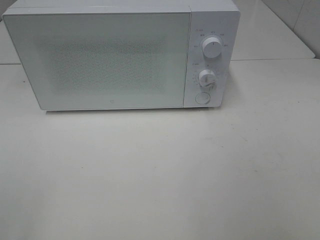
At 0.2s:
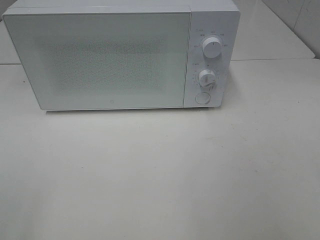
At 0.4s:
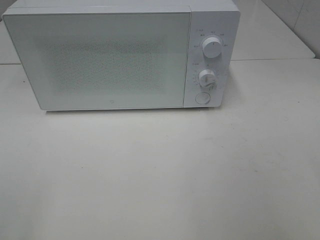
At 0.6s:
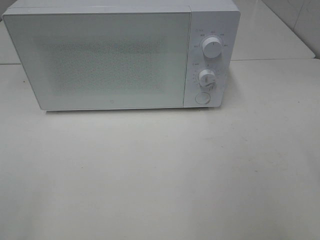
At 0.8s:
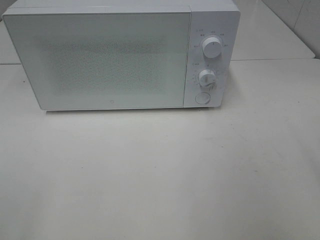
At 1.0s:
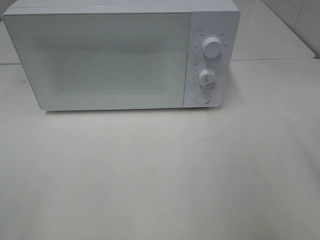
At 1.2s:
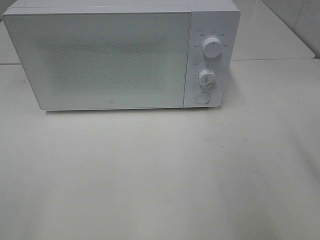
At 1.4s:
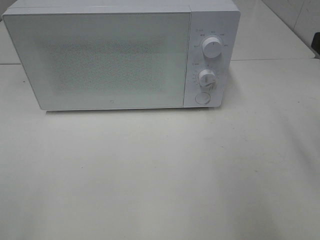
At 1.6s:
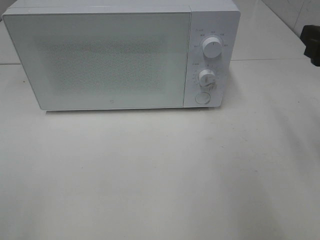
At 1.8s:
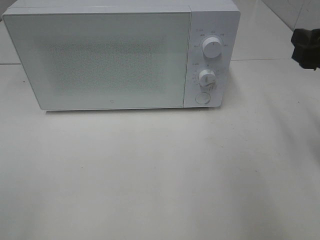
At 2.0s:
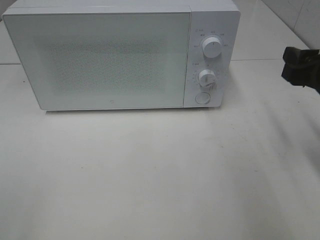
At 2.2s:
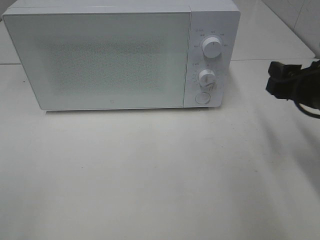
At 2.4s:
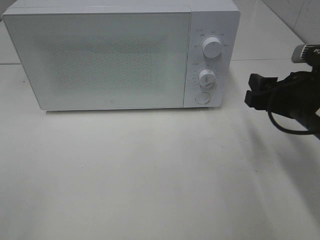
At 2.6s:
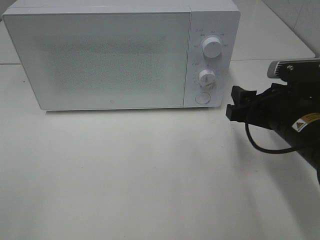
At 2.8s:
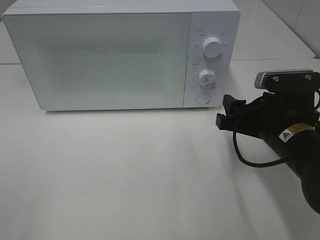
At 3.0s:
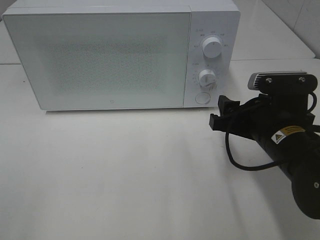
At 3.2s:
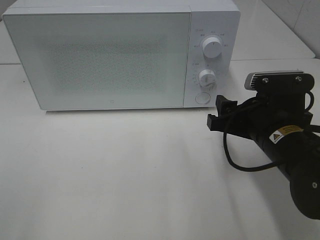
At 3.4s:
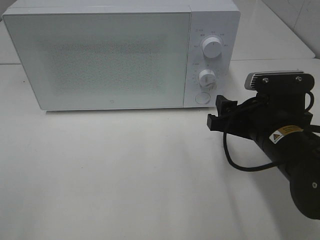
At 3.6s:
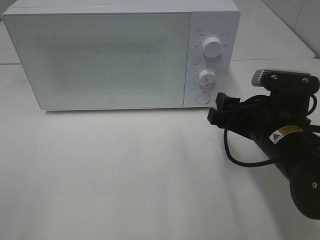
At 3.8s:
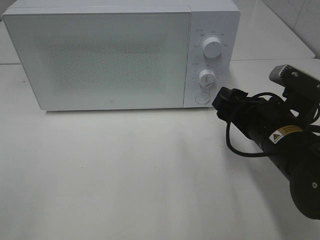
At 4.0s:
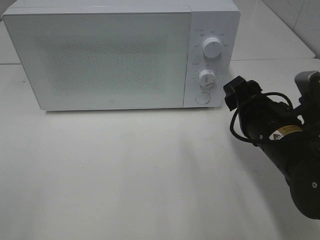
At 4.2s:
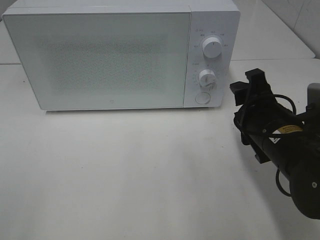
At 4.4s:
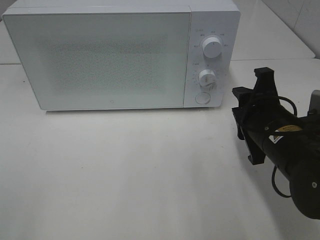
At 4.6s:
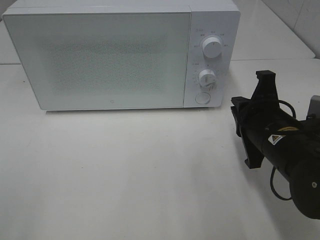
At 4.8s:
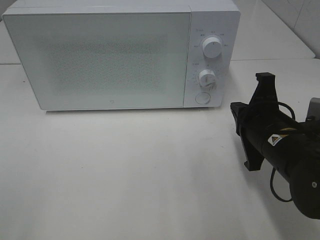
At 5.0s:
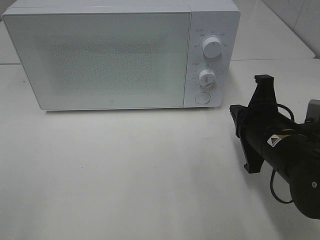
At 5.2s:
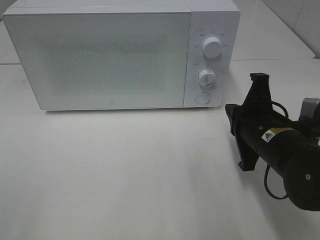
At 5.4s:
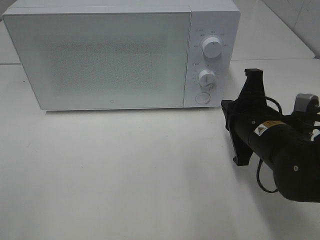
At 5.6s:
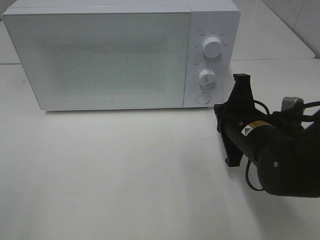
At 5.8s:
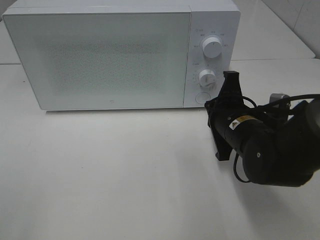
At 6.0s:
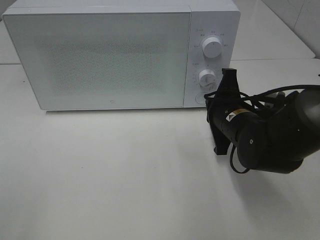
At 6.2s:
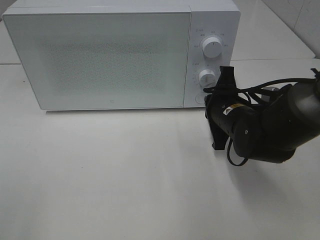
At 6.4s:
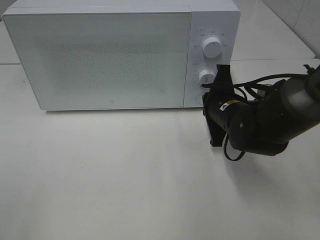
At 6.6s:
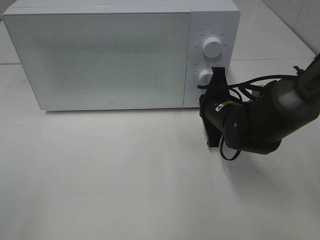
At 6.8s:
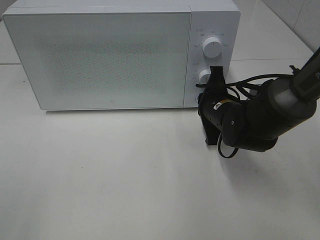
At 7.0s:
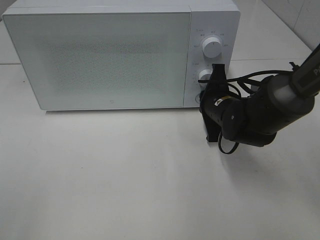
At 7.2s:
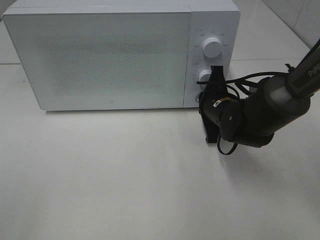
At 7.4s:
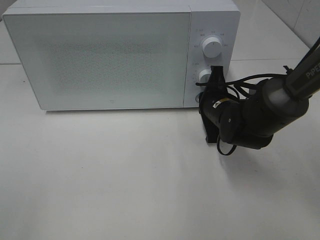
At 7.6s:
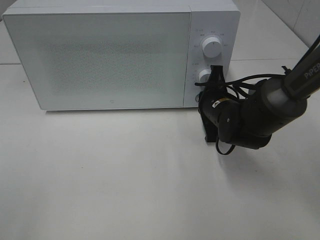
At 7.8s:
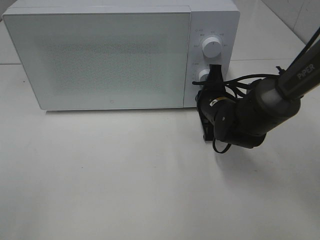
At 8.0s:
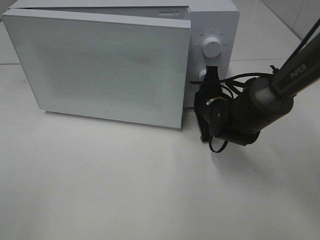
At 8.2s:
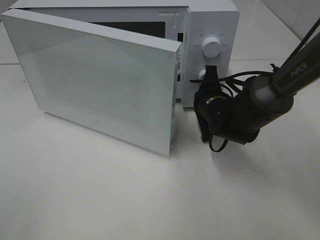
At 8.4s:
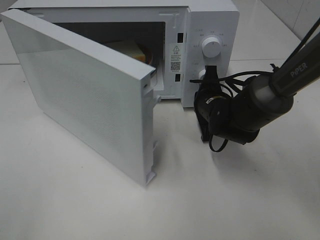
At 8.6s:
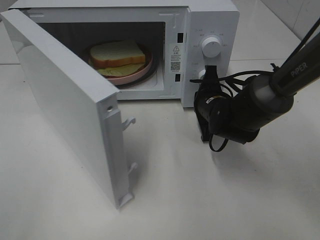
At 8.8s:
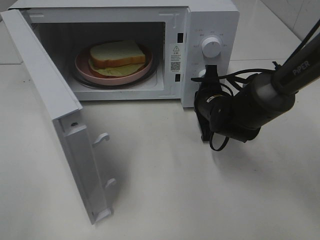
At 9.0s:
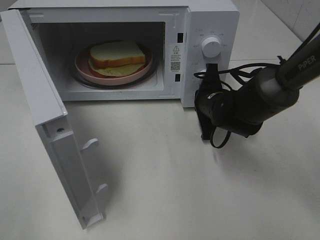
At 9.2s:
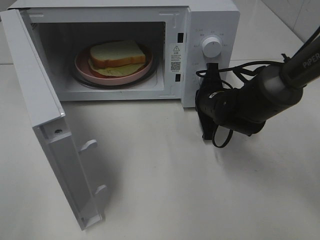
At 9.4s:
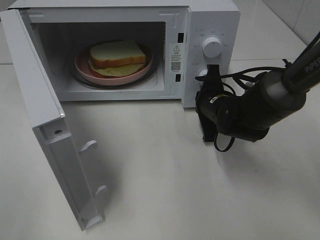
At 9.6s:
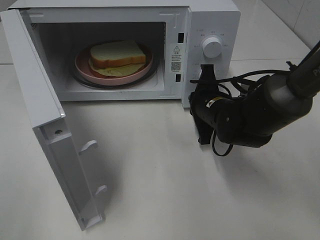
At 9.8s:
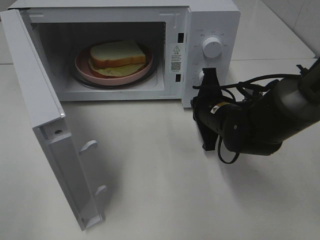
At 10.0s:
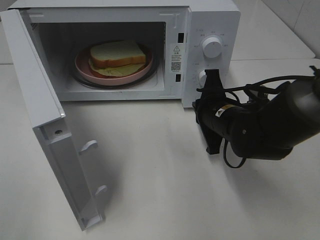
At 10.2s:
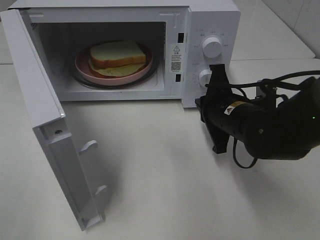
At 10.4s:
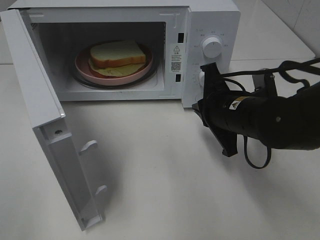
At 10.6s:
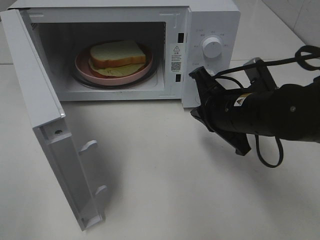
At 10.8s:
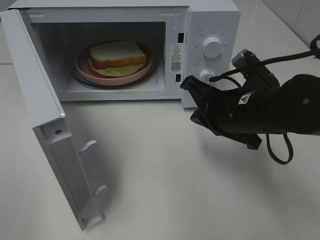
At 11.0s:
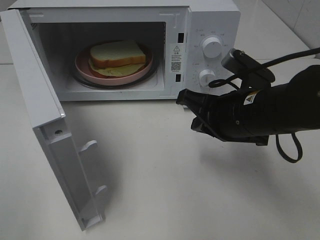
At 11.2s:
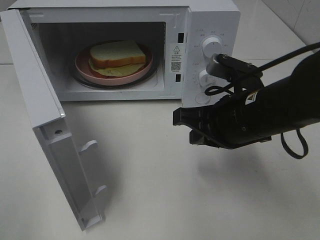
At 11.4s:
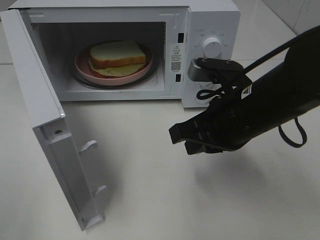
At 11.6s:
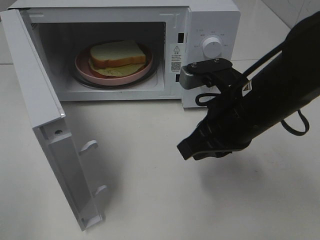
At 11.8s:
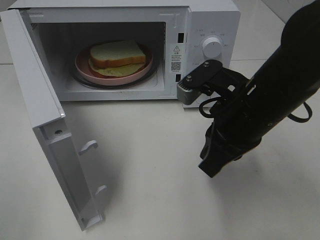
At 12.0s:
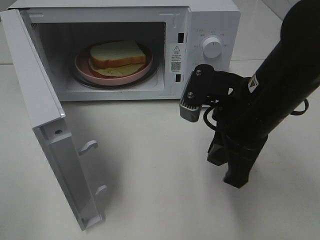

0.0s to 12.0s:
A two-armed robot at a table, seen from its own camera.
Task of the whole recording: Heat Sandwich.
Step, 0.0s to 9.8s: Right hand: press the switch.
0.0s to 1.6s: The right gripper shifts some 20 cm forward.
1.6s to 3.0s: The right gripper moves downward and to the left, some 15 cm.
3.0s to 4.4s: The right gripper closes up.
4.4s to 6.0s: The right gripper travels forward by some 5 cm, and closes.
6.0s to 7.6s: The right gripper shifts approximately 5 cm forward.
9.0s to 10.4s: The right gripper shifts some 10 cm backward and upward.
10.4s to 12.0s: The right gripper shifts some 5 cm upward.

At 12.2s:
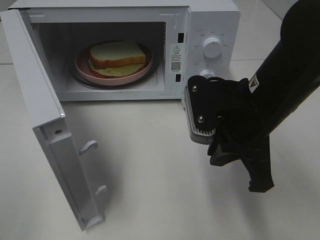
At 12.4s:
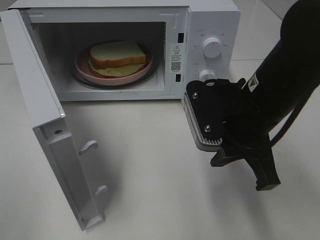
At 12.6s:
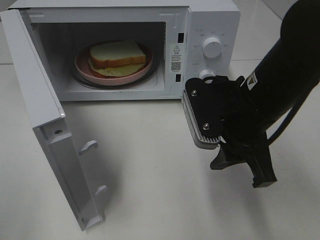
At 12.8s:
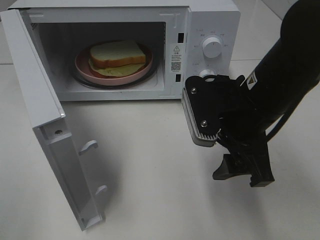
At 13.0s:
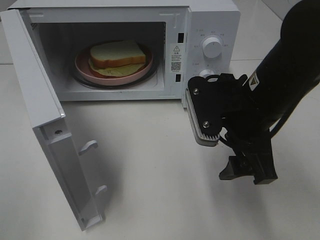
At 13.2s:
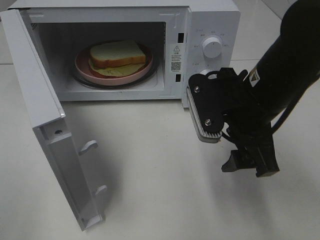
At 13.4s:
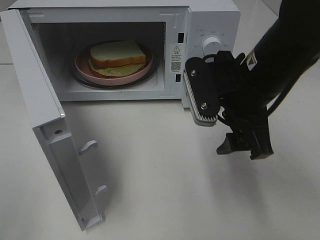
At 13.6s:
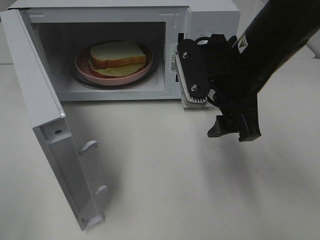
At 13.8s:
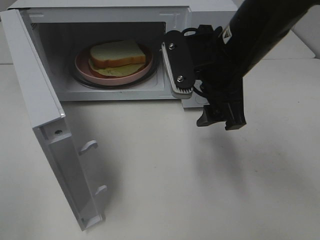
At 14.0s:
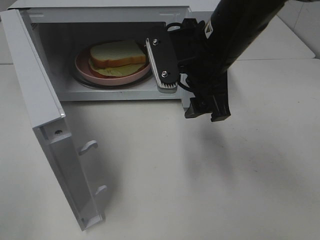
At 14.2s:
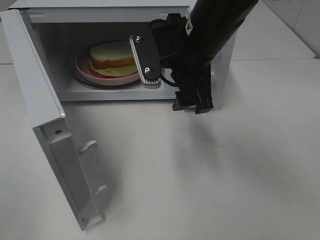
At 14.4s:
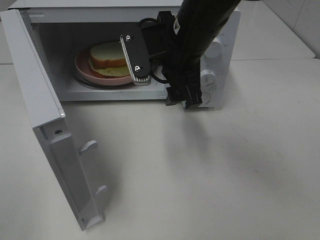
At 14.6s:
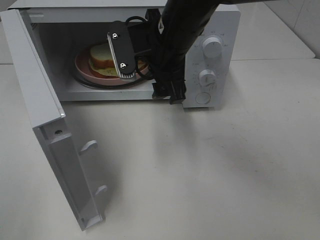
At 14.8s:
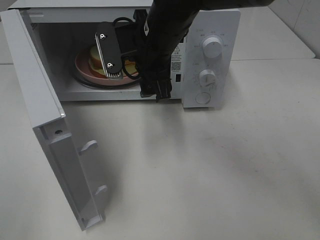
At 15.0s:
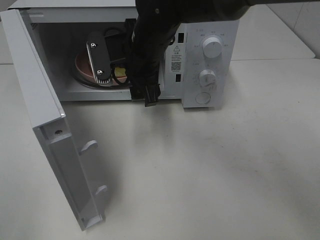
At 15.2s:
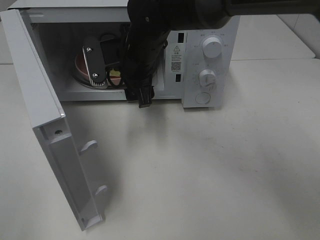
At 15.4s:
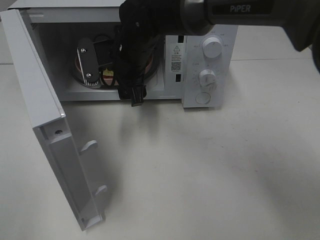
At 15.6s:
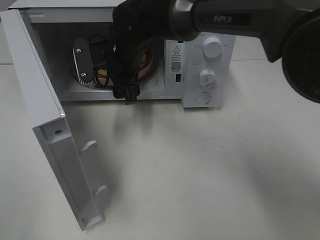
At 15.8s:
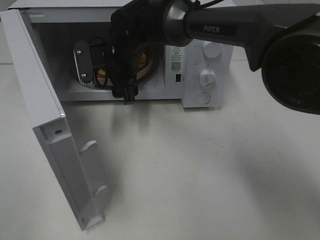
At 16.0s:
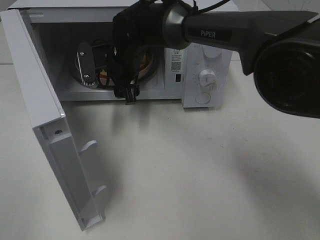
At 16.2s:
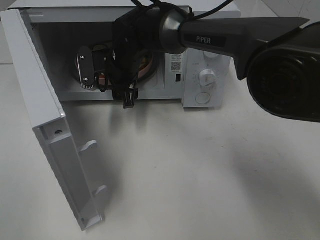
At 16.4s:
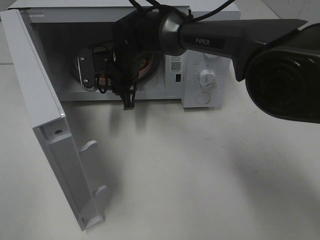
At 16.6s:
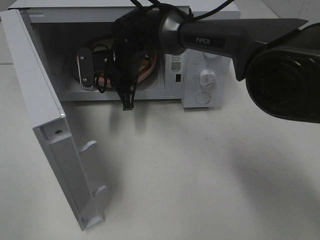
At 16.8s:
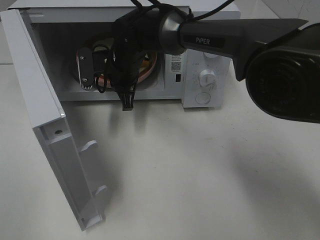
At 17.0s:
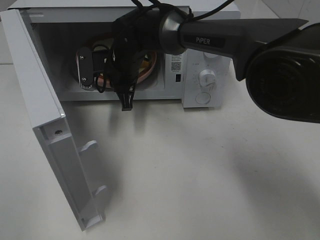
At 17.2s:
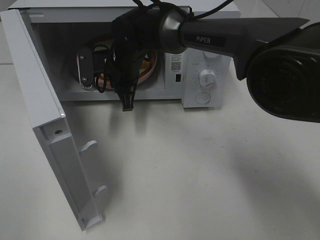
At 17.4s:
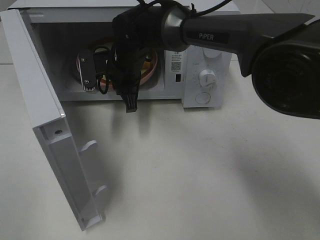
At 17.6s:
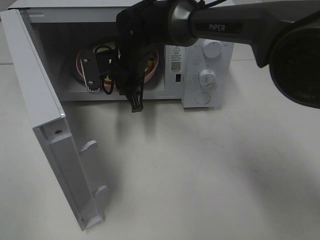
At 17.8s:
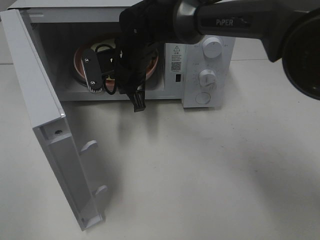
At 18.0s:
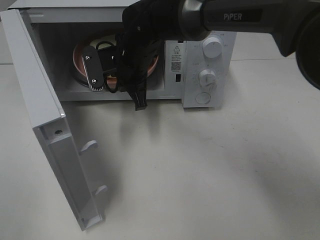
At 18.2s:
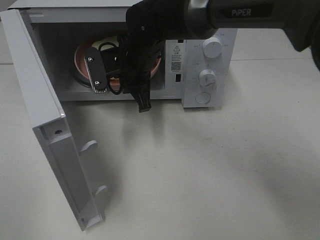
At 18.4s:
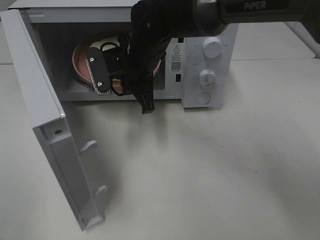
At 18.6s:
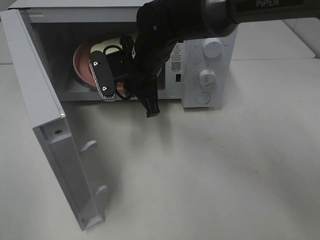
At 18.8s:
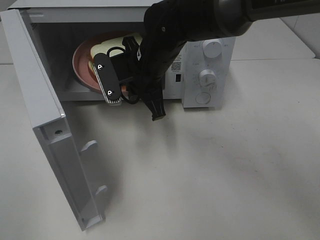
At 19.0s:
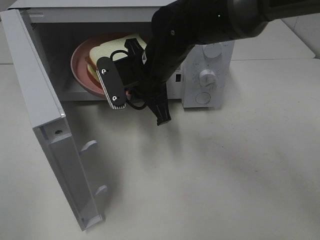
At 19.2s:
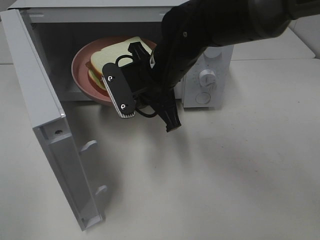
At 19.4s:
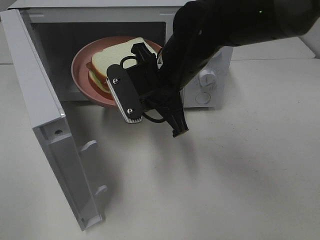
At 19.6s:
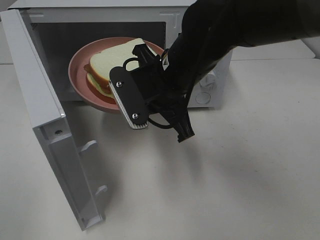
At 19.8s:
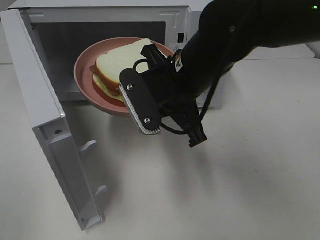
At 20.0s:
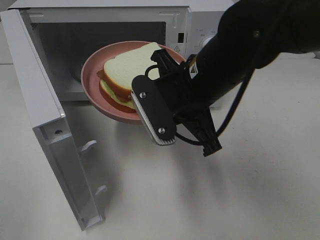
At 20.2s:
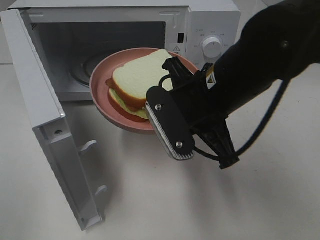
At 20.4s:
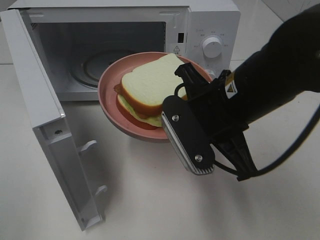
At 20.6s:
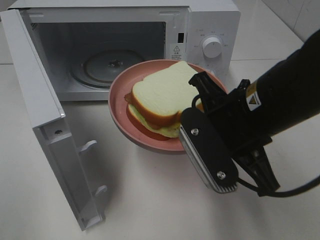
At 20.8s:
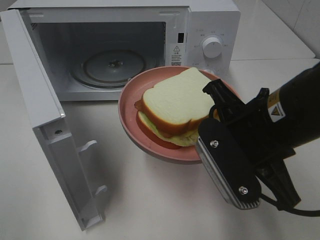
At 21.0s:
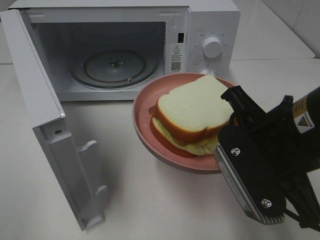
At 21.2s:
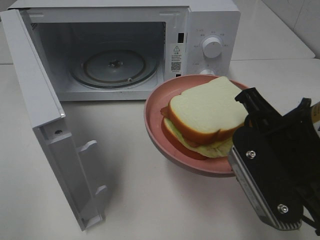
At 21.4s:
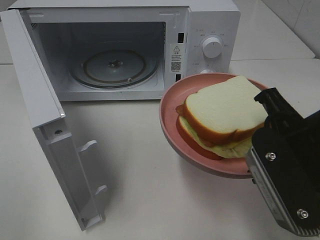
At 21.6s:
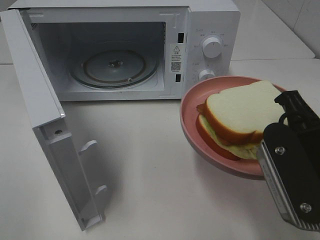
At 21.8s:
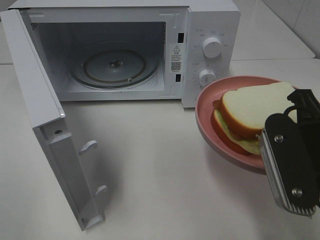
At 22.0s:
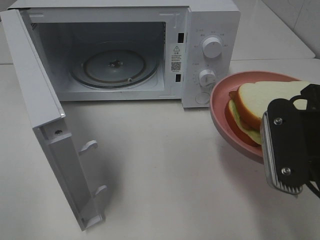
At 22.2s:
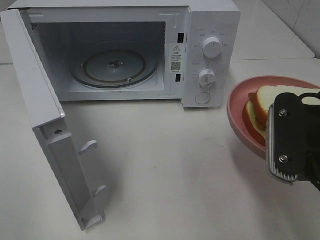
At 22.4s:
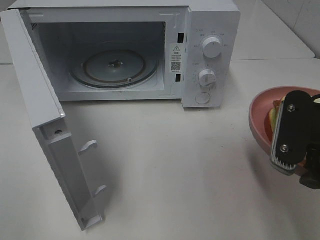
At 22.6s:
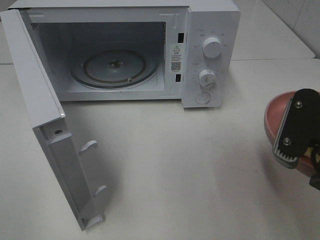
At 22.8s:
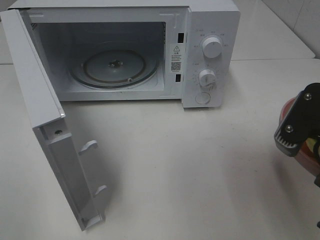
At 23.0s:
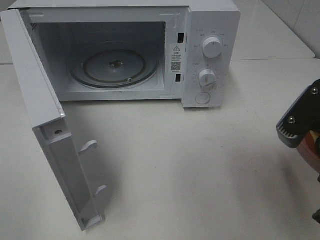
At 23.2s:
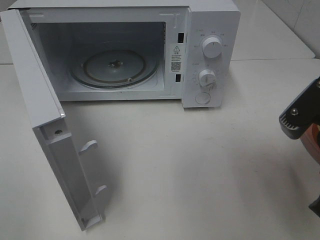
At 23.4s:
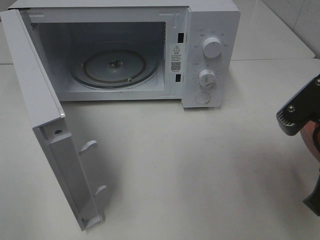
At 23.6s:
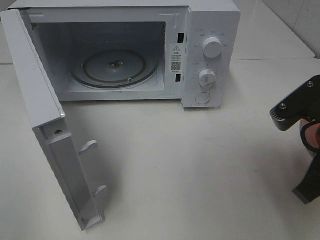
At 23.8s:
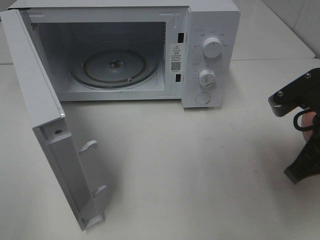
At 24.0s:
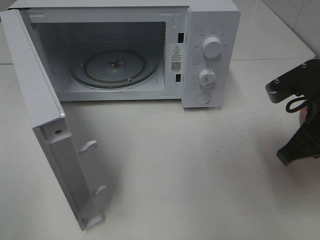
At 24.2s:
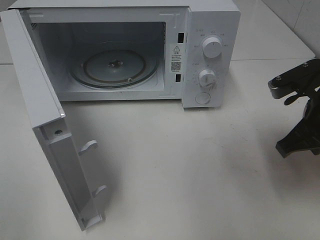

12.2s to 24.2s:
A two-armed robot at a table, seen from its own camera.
Task of the whole recording: Heat Sandwich.
Step, 12.2s to 17.0s: Right hand: grab the plate with the sandwich.
12.2s to 13.8s: The right gripper is displaced forward by approximately 5 cm, and opens.
13.8s to 15.2s: The right gripper travels to the left, forward and downward by roughly 15 cm.
15.2s to 16.6s: The right gripper is displaced forward by some 5 cm, and closes its fingers.
16.6s to 18.2s: The right gripper changes place by approximately 5 cm.
18.2s to 19.8s: The right gripper travels backward and to the right by approximately 15 cm.
19.8s to 21.2s: The right gripper goes some 15 cm backward and to the right.
21.2s to 22.6s: The right gripper shifts by roughly 5 cm.
22.6s to 24.2s: The right gripper heads forward, covering about 10 cm.
